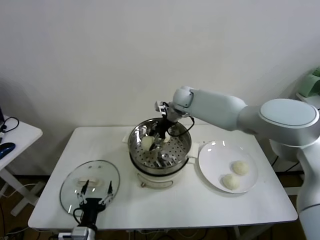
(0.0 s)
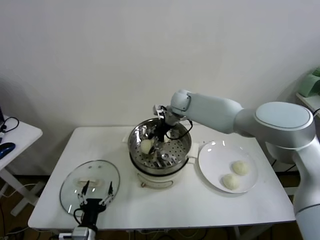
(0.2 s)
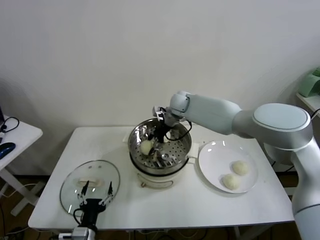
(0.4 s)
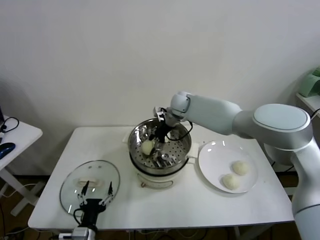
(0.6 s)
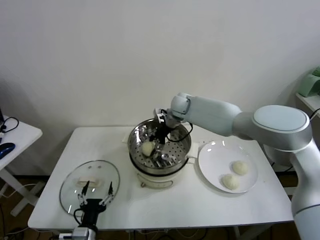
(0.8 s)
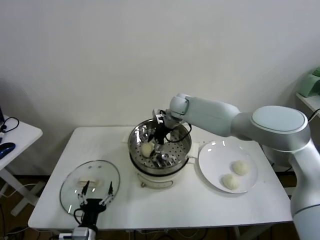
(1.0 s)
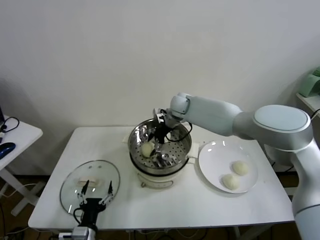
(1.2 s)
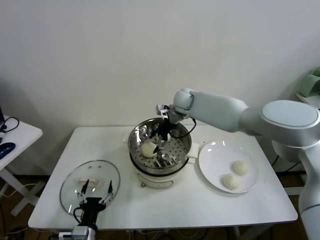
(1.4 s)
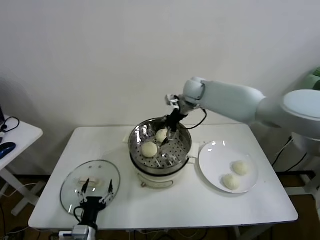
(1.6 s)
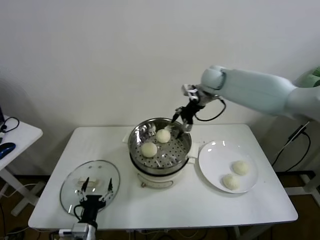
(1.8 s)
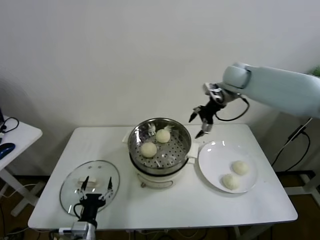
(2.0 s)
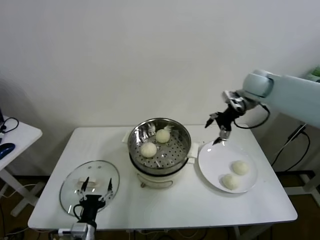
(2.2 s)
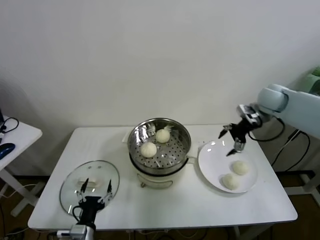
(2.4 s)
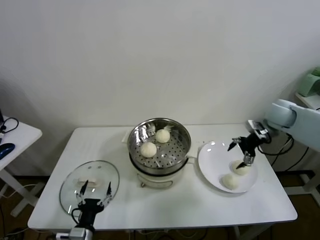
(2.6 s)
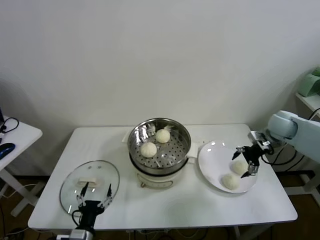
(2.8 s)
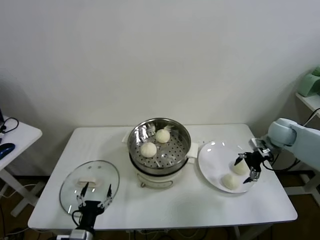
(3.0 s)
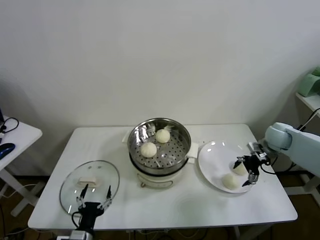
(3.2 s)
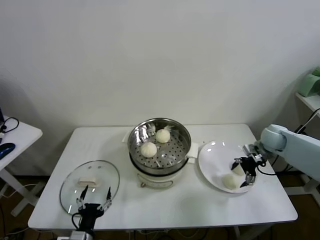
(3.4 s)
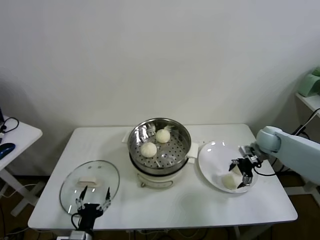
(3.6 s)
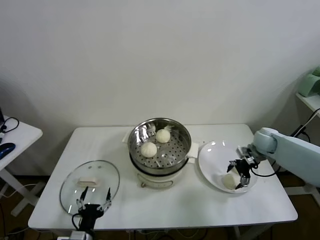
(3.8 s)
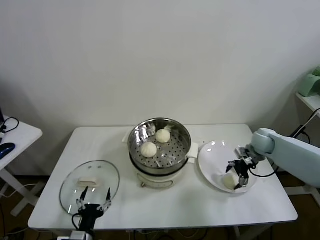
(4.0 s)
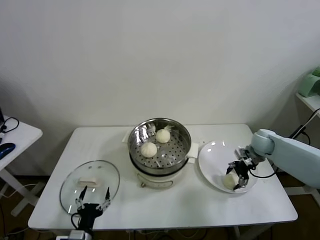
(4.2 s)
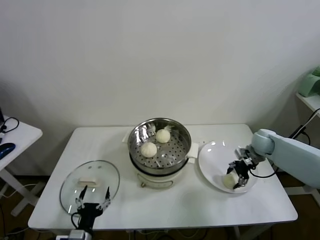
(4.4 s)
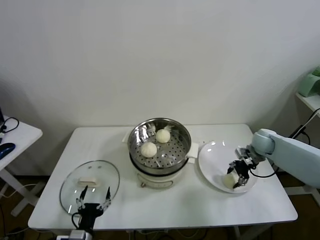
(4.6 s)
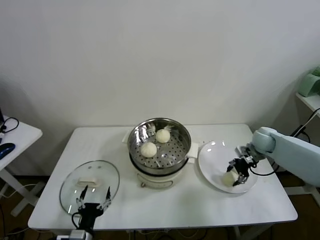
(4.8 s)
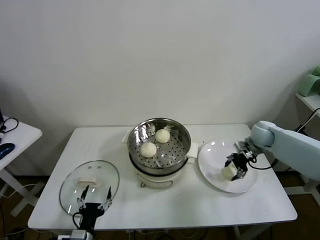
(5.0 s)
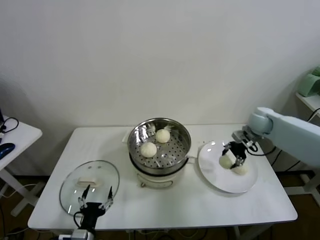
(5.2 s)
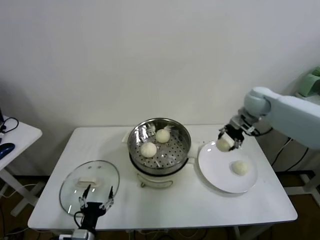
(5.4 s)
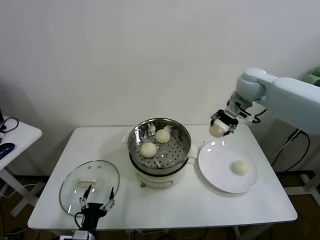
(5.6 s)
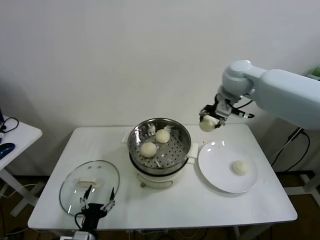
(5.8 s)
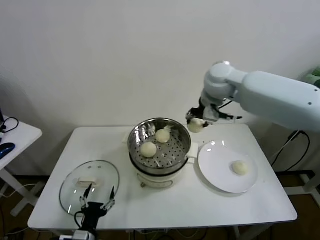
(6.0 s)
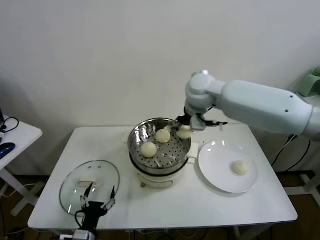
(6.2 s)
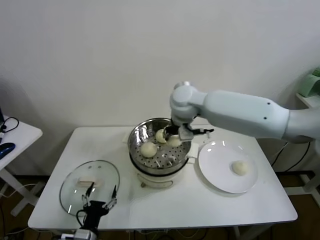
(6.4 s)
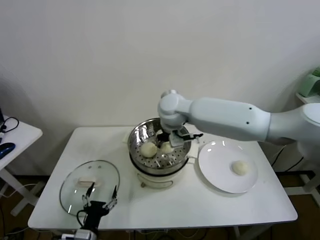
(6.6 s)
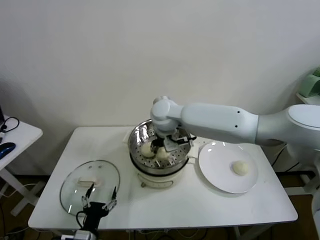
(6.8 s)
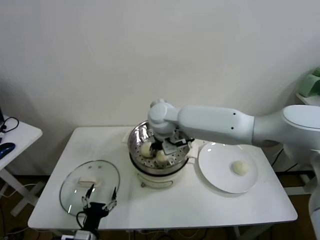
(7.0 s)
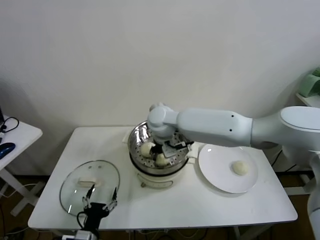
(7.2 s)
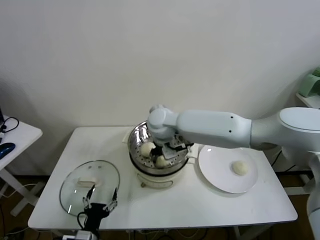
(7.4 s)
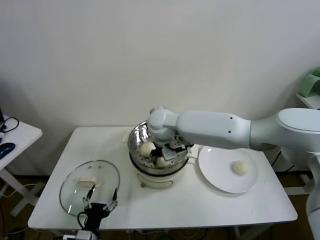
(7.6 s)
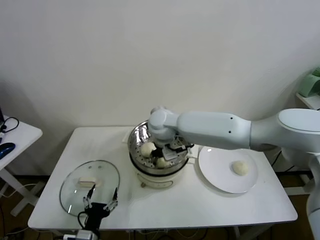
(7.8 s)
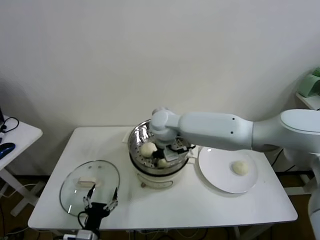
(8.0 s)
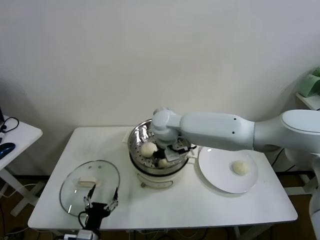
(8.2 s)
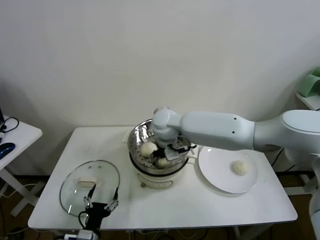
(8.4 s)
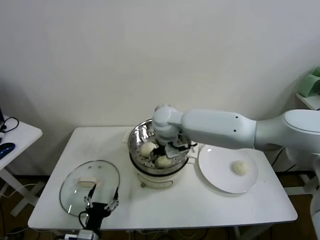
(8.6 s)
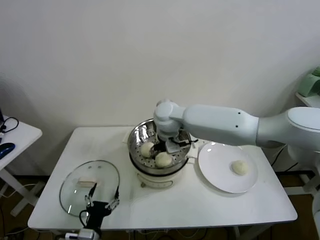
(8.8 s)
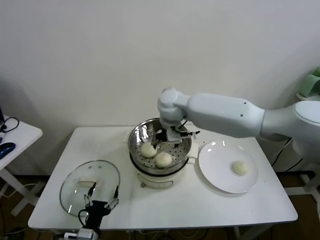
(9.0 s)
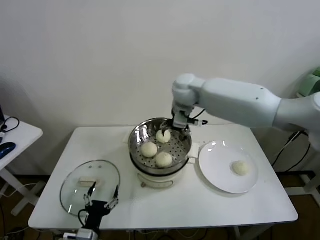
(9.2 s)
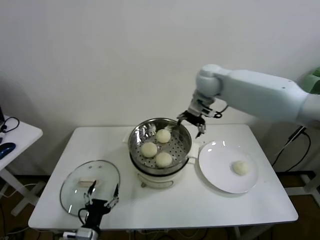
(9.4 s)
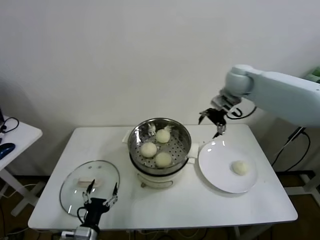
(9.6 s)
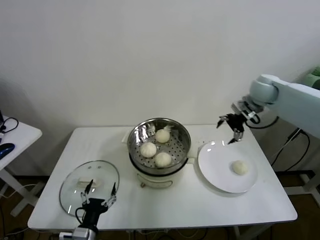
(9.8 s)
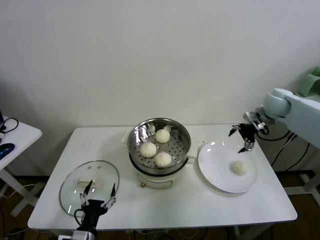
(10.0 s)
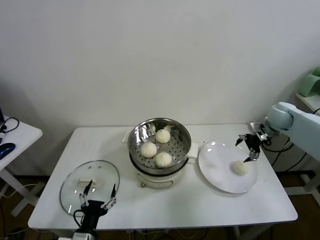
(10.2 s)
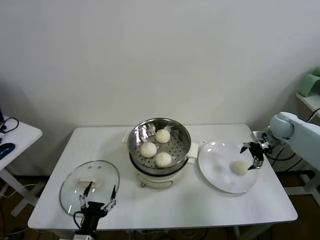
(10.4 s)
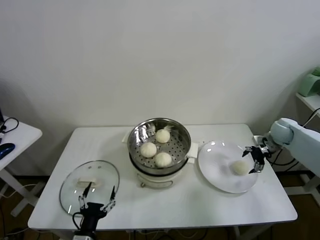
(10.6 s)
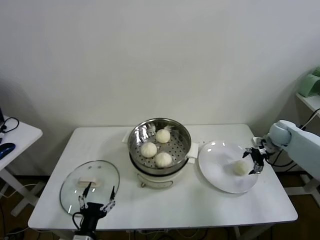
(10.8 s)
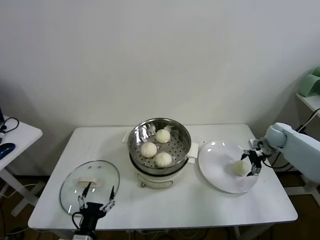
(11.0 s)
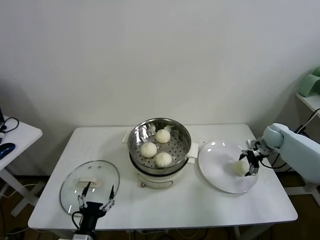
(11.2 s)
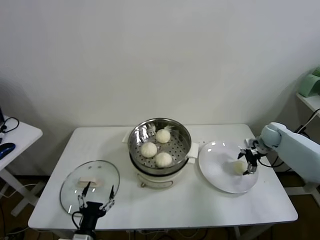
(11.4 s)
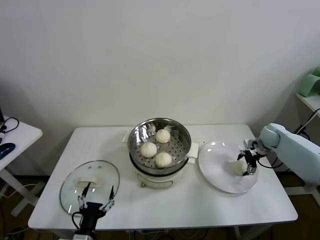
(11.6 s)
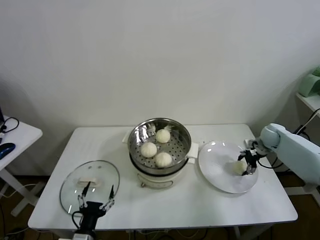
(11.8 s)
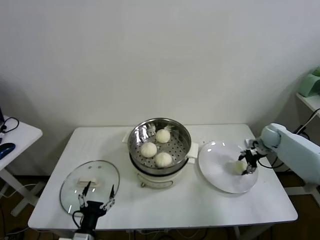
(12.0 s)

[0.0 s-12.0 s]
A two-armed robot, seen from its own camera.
Task of the whole recording: take steamed baozi put them in steamer.
Step, 1.4 to 4.0 s: Grasp the baozi in the plate with right gripper.
Step, 4.2 to 8.6 s: Place the baozi on the steamer with right gripper.
Step, 8.8 to 11.6 s: Grasp the baozi in the plate with right gripper.
0.0 to 1.6 s: The right gripper moves upward and to the right, roughly 10 cm, and opens up.
1.6 to 3.0 s: The right gripper travels to the right, backward and downward by about 35 cm.
3.0 to 4.4 s: The right gripper shifts about 5 cm downward, and closes.
4.4 to 6.0 s: The right gripper moves upward and to the left, about 35 cm.
6.0 to 7.6 s: The right gripper moves to the left and downward, about 20 cm.
7.6 to 9.0 s: The right gripper heads upward, covering some 5 cm, and opens its fingers.
9.0 to 10.4 s: The right gripper is displaced to the right by roughly 40 cm.
10.4 to 12.0 s: The right gripper travels downward by about 10 cm, and closes up.

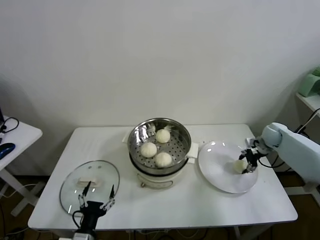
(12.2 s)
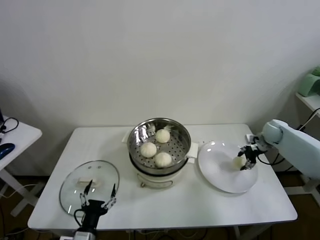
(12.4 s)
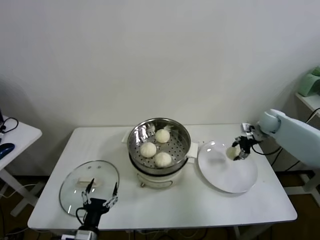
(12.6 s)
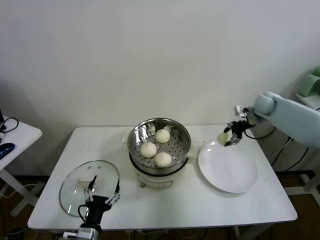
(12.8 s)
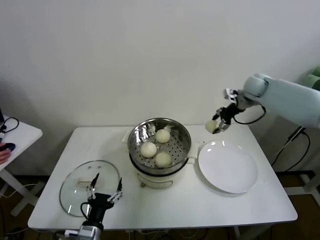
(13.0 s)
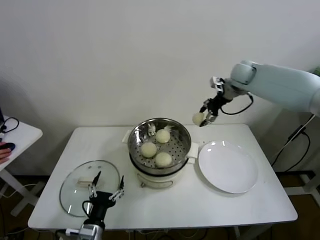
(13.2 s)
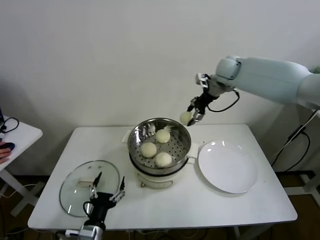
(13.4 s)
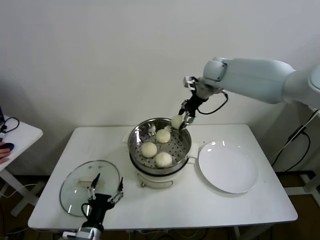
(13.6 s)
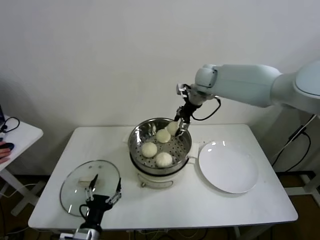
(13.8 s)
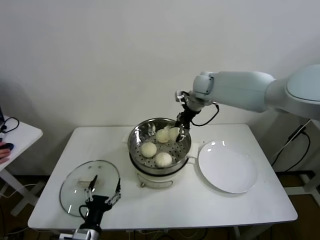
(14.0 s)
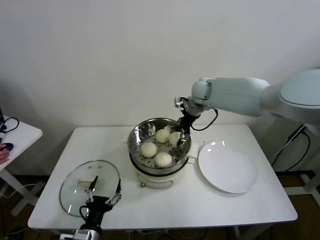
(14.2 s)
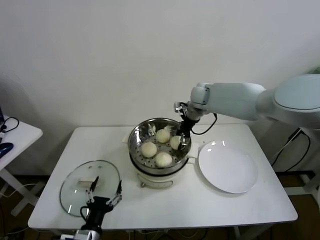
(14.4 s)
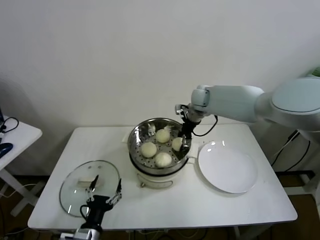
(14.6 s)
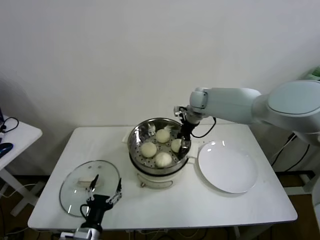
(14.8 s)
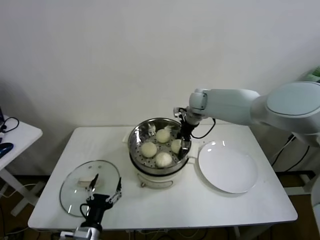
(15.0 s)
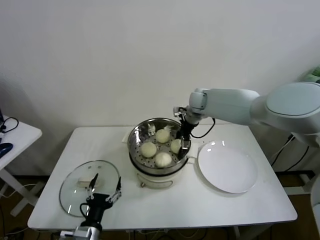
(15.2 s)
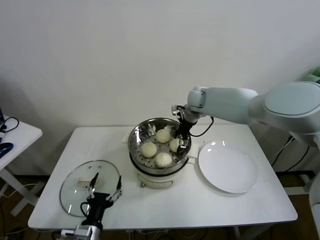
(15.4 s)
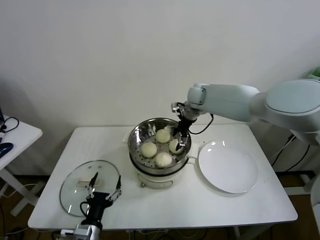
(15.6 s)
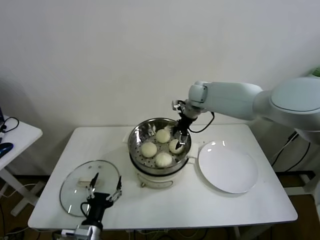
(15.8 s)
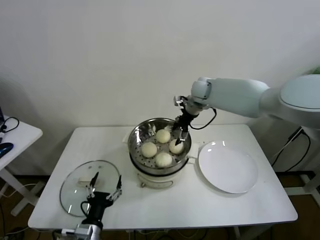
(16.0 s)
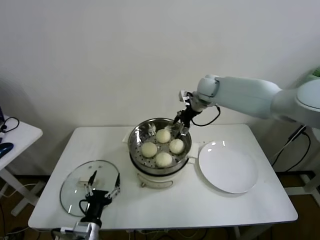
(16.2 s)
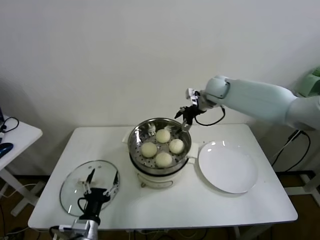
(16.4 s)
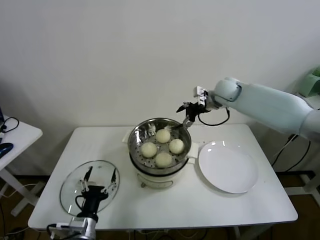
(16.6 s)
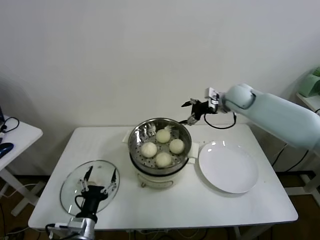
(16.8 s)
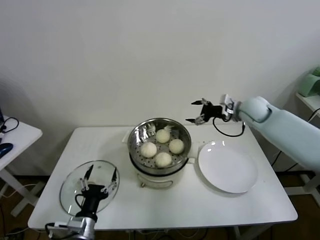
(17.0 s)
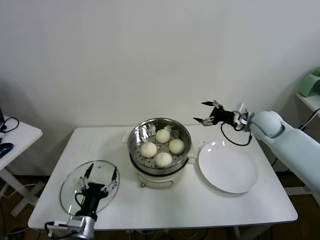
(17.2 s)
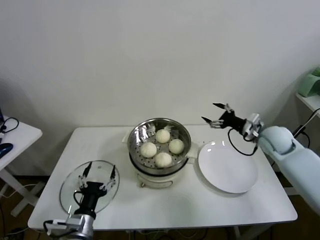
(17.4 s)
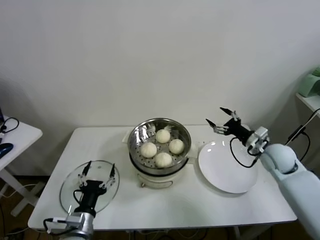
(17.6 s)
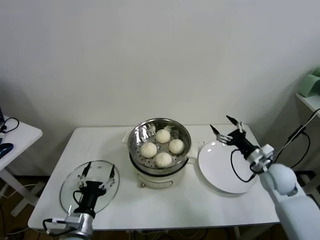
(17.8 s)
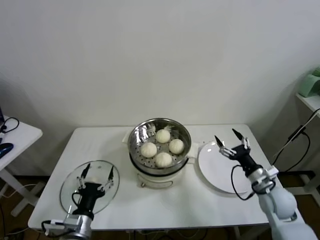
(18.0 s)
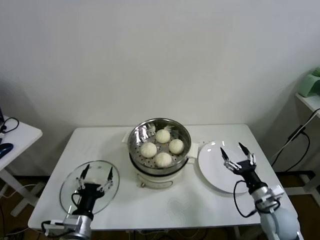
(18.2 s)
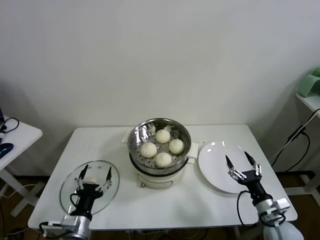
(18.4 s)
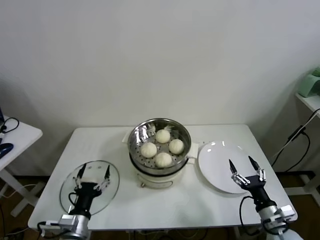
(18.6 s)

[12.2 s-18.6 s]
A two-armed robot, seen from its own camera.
Task of the whole recording: take steamed baozi put them in steamer.
Step, 12.2 to 15.6 s: Place the baozi on the steamer with right gripper.
12.2 to 13.8 s: The right gripper goes roughly 35 cm to the left and upward.
13.8 to 15.4 s: The right gripper shifts approximately 10 cm downward, and opens.
15.4 to 17.0 s: The right gripper shifts some 20 cm to the right and backward.
17.0 to 18.6 s: The right gripper heads backward and downward, covering roughly 40 cm.

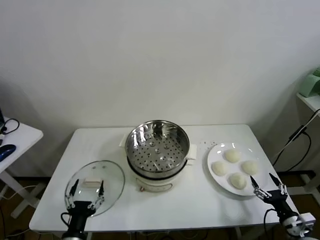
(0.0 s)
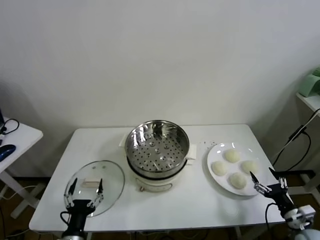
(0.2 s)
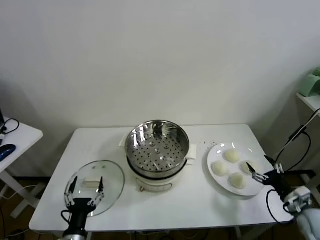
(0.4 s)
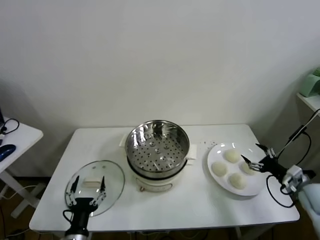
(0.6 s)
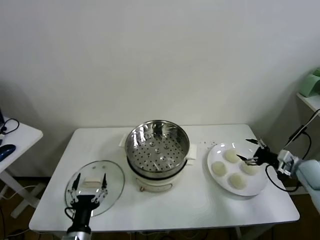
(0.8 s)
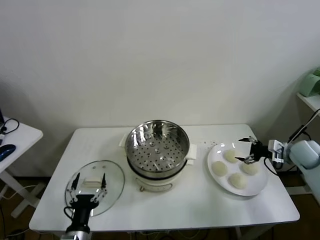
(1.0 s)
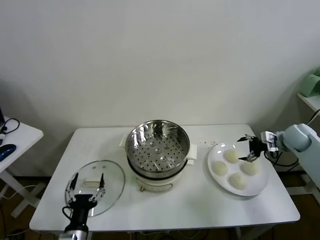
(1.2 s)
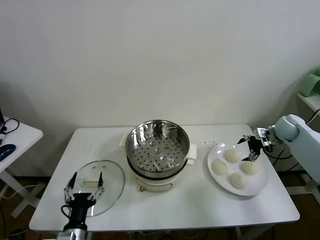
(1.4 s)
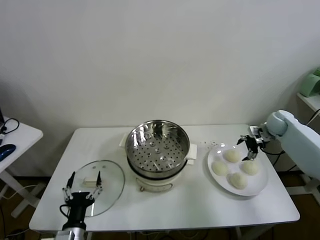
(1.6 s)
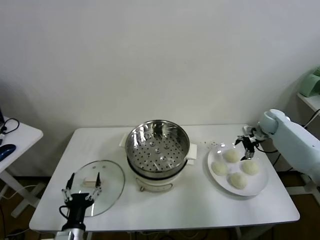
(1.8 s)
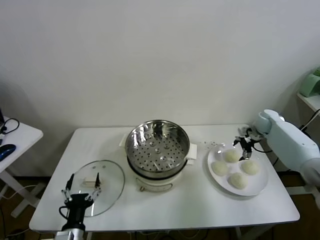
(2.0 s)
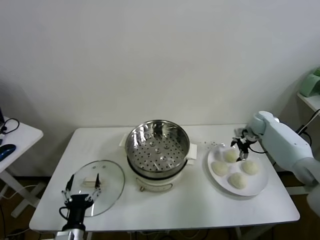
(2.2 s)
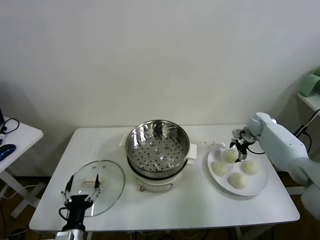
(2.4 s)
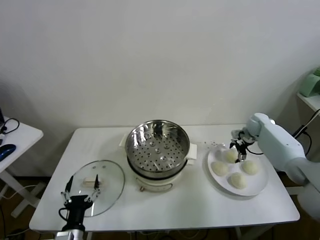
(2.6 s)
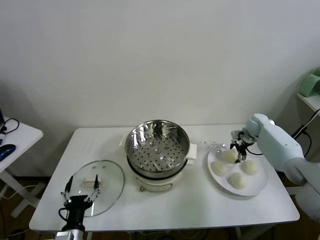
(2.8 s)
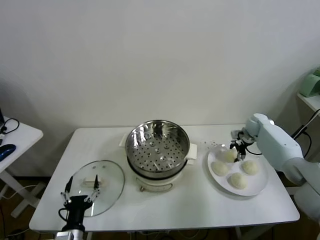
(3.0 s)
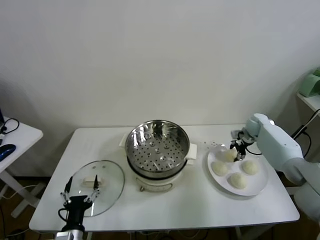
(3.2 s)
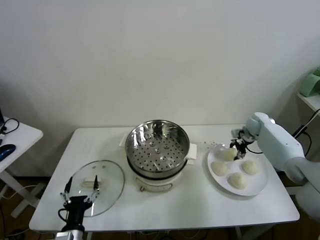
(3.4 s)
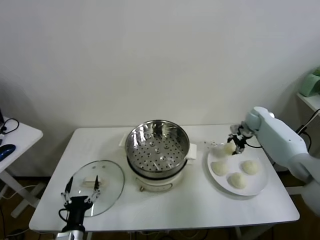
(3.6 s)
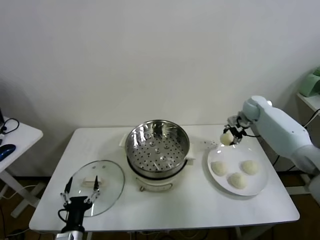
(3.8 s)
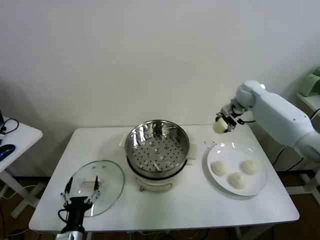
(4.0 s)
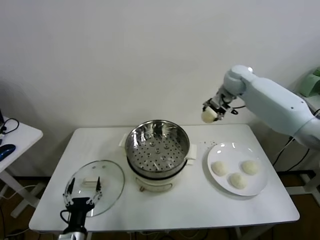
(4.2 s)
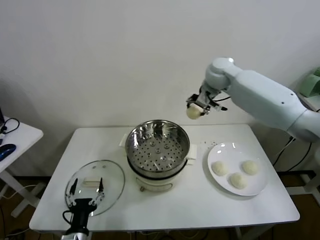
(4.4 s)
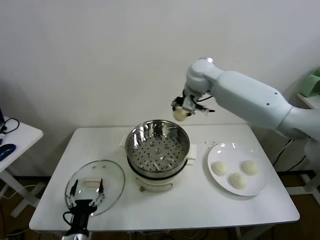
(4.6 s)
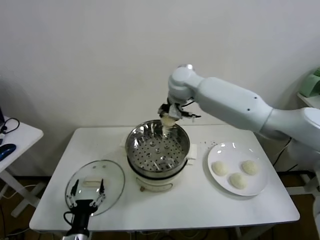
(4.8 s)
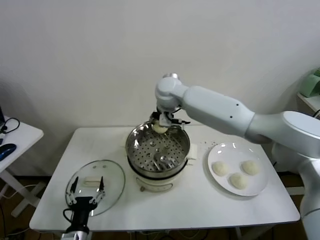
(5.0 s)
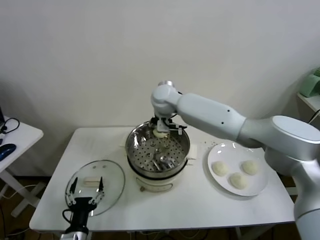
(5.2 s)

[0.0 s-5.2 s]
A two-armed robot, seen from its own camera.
Task of the whole recording: take steamed baozi put them in steamer.
Step, 0.0 to 2.8 s: Grasp the baozi in the plate with right gripper.
1.8 to 3.4 s: The right gripper closes.
3.4 to 5.2 s: The right gripper heads to the left, covering approximately 40 cm.
